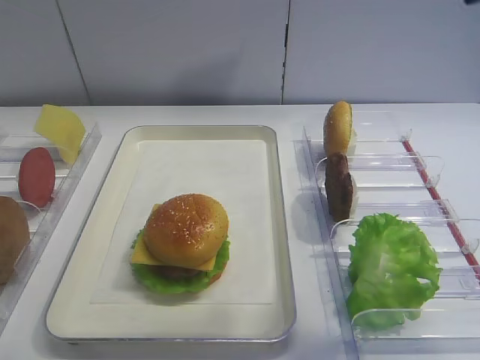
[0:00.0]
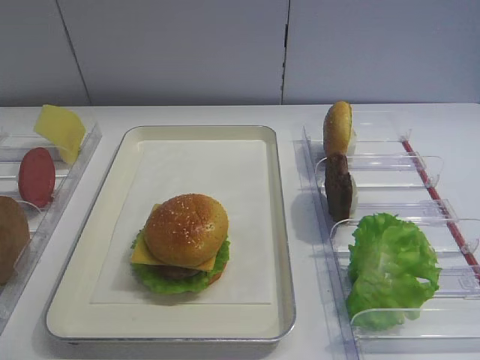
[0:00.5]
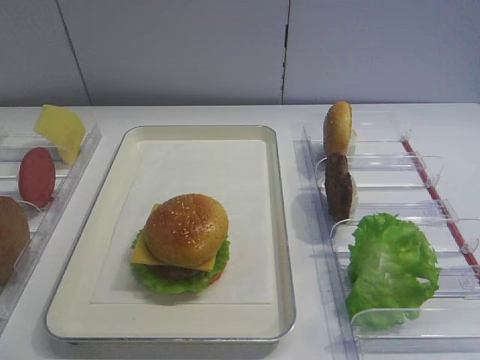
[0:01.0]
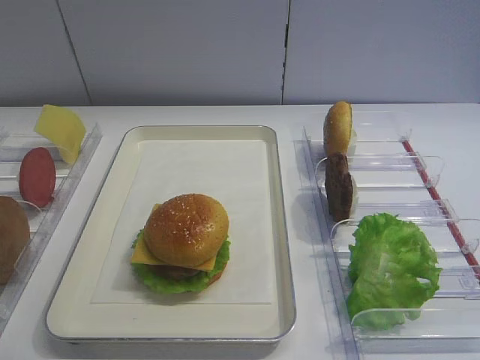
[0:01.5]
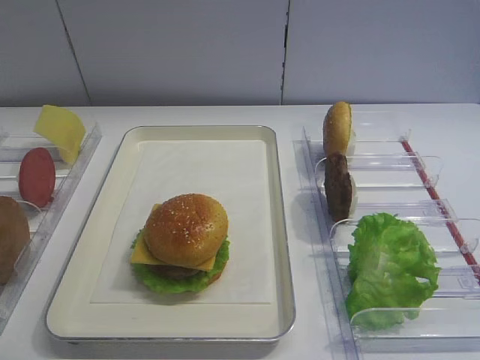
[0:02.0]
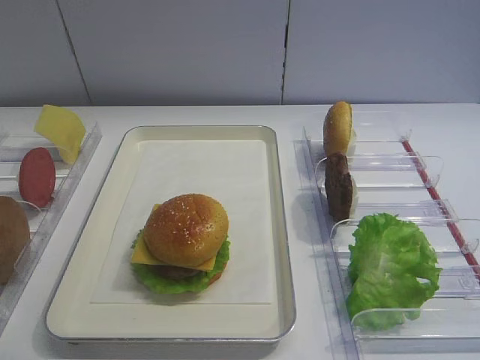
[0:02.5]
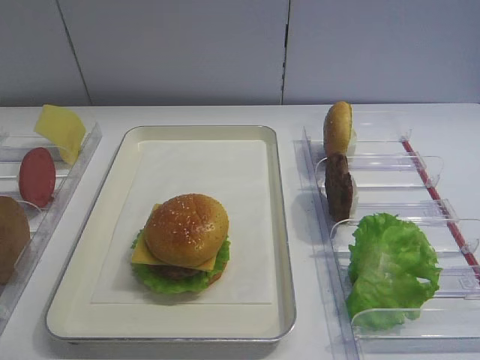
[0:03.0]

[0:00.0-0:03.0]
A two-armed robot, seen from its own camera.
0:00.0 to 0:01.5: The right gripper is displaced backward and downward by roughly 25 cm.
